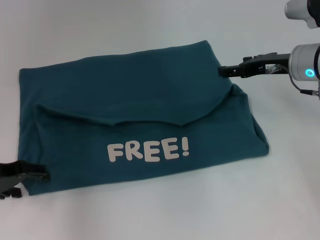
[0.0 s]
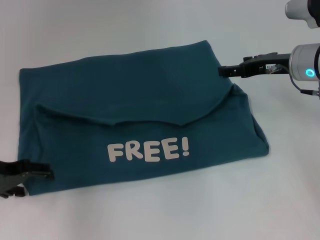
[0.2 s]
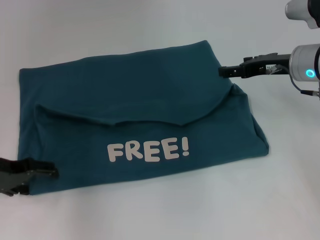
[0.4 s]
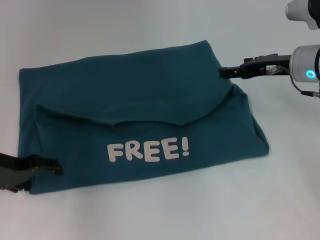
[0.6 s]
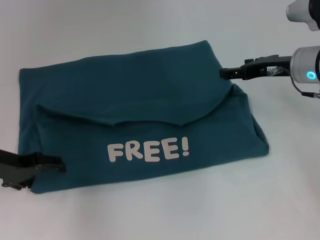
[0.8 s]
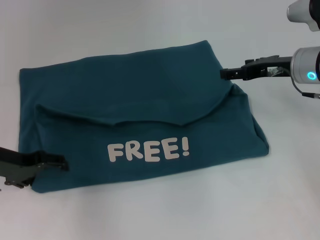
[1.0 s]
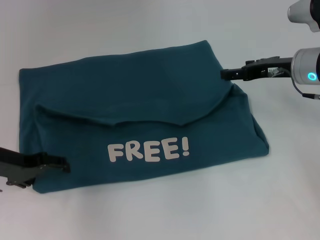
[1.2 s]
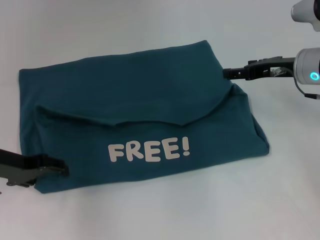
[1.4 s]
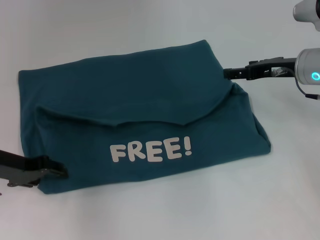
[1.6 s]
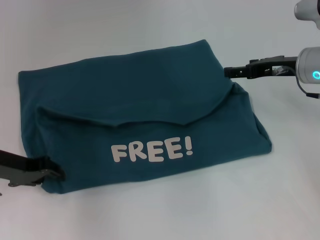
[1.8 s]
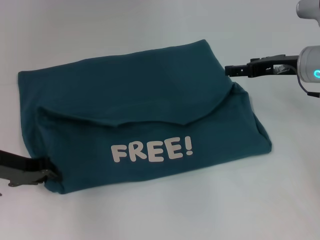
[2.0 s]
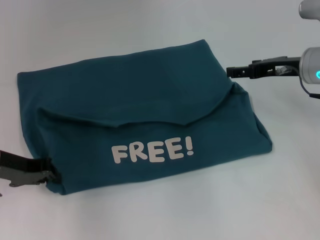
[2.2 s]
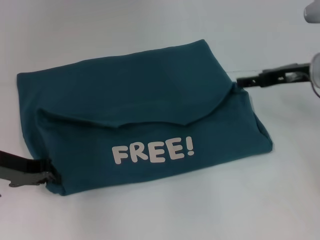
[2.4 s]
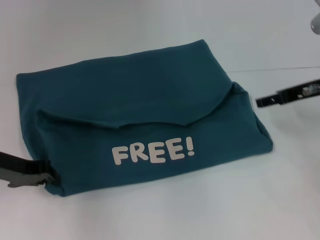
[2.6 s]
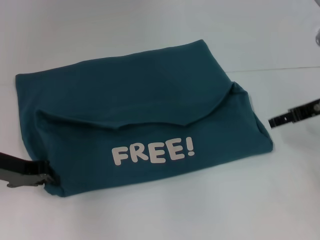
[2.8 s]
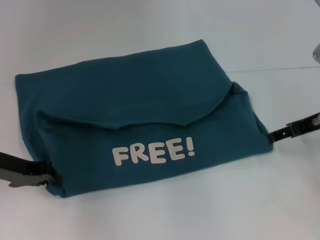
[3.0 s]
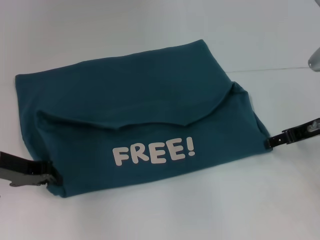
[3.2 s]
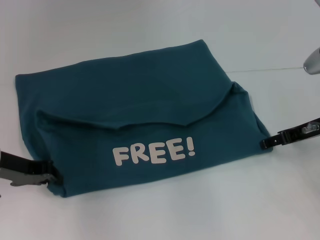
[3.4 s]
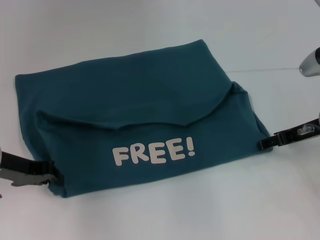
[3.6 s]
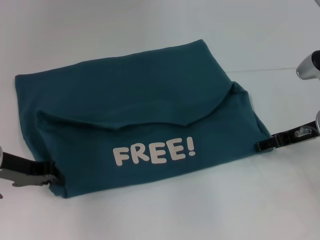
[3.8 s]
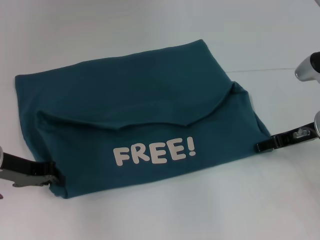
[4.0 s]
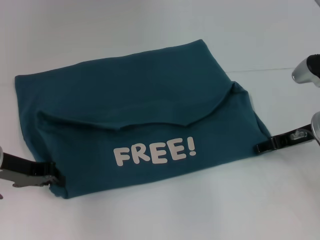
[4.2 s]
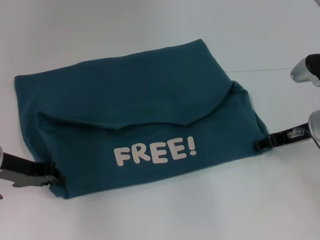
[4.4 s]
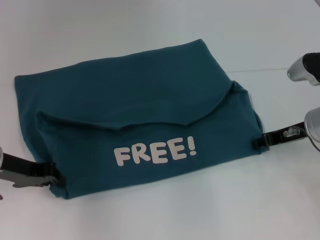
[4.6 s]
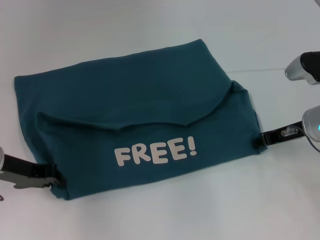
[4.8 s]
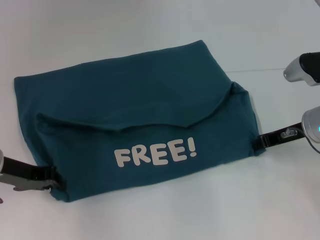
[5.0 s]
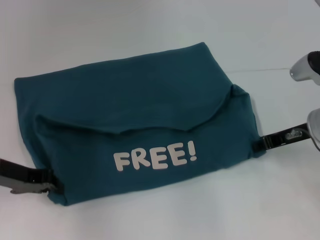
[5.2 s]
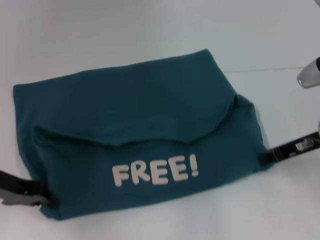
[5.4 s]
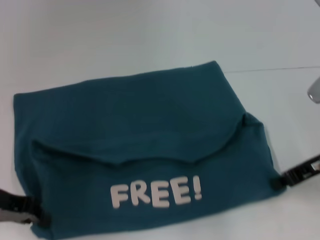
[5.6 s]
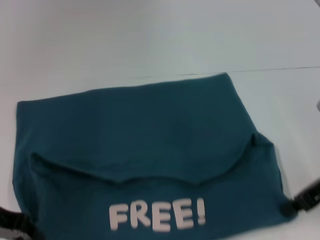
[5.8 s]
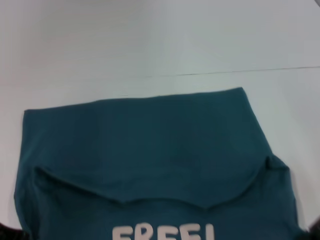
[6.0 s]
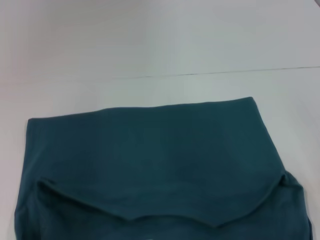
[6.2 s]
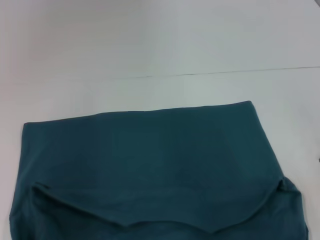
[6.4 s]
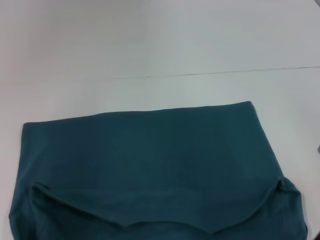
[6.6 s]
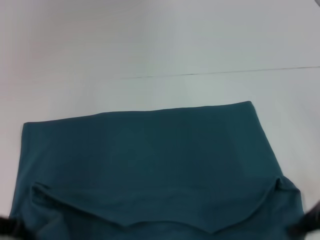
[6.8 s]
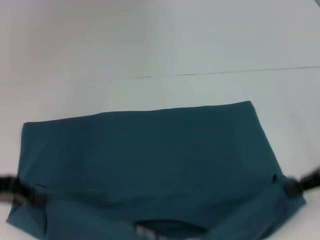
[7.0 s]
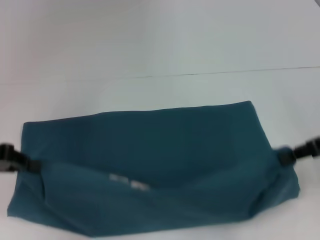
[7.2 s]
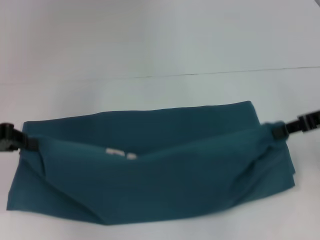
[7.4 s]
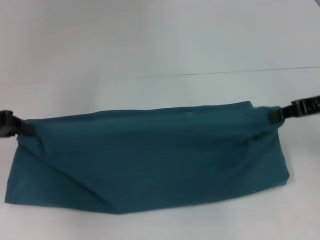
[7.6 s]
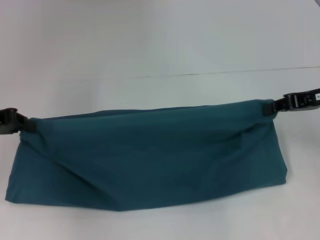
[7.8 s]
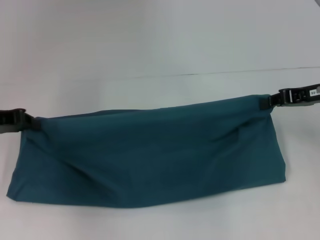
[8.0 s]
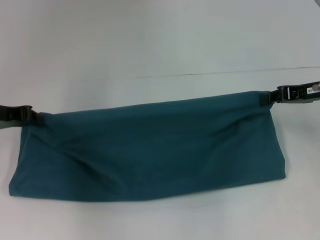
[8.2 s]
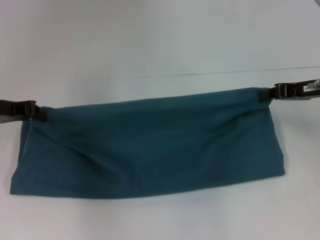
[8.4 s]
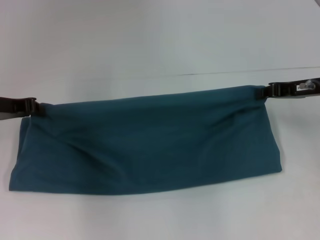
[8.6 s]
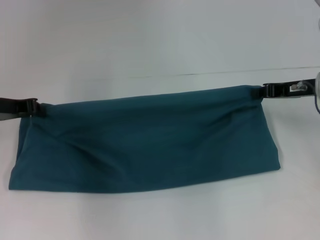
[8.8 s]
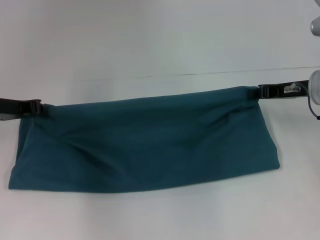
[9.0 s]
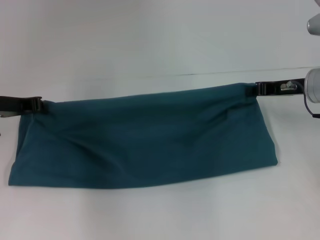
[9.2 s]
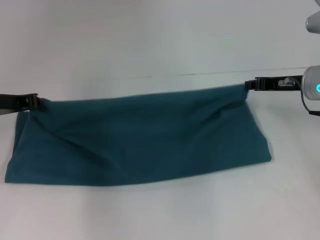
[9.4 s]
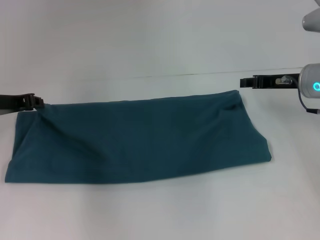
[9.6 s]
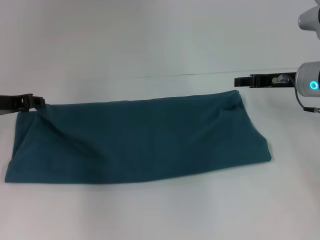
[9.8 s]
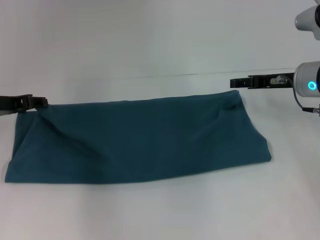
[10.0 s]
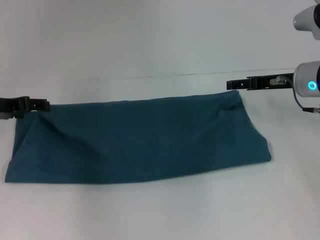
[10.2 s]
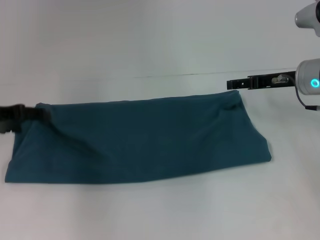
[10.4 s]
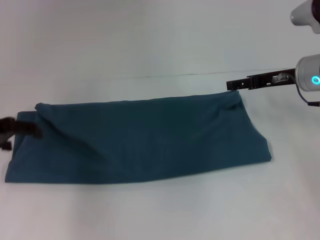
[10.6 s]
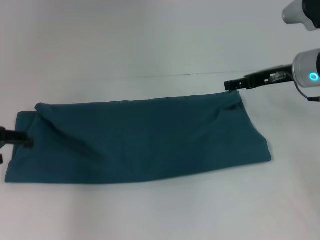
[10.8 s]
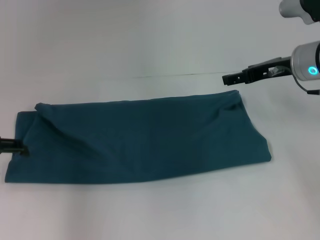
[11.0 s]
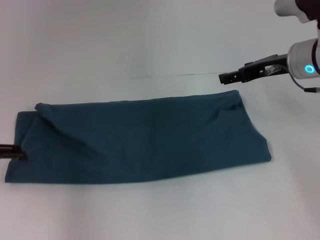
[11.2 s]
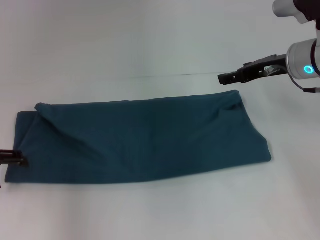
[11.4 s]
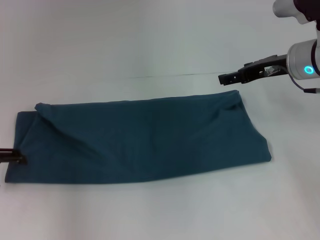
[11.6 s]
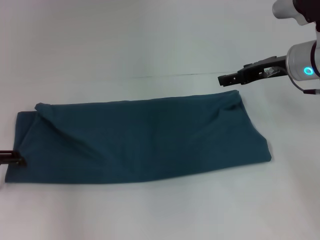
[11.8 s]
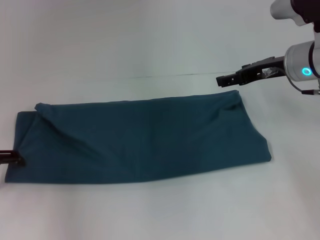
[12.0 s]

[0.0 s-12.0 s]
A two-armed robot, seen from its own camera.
Step, 0.0 to 6.4 s: Pull the clothes with your left hand.
Step, 0.0 to 6.4 s: Pull the clothes with your right hand.
Step, 6.6 to 10.4 s: Fold the clothes to the left.
Step, 6.6 to 10.4 s: Fold the clothes to the right.
0.0 to 1.6 s: The grippers stay close to where they were, moving slightly.
1.6 to 3.0 s: The left gripper closes its fingers. Meanwhile the right gripper shifts approximately 5 cm backward.
3.0 to 4.4 s: The right gripper ends up about 5 cm from where it was.
4.4 to 6.0 s: The right gripper goes roughly 10 cm backward, and closes up; the left gripper is displaced backward by some 5 cm.
6.0 to 7.6 s: The left gripper heads forward and upward, covering approximately 10 cm; the right gripper shifts some 10 cm forward.
7.6 to 9.0 s: The left gripper shifts by some 10 cm; the right gripper heads downward, covering roughly 5 cm.
9.0 to 10.4 s: The right gripper opens its fingers; the left gripper opens.
10.4 to 12.0 s: The left gripper moves approximately 5 cm.

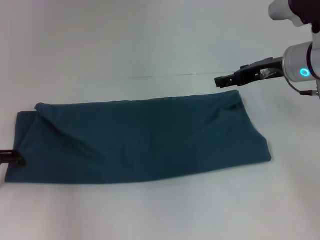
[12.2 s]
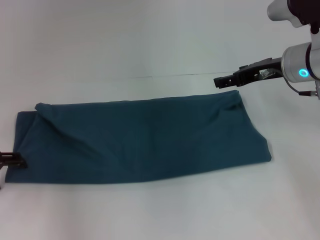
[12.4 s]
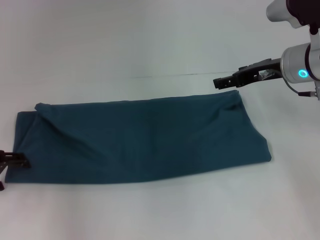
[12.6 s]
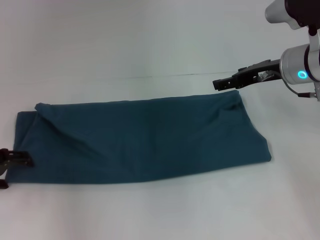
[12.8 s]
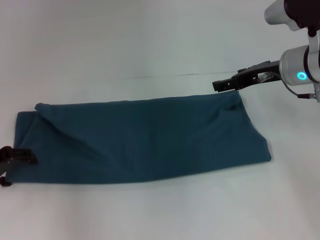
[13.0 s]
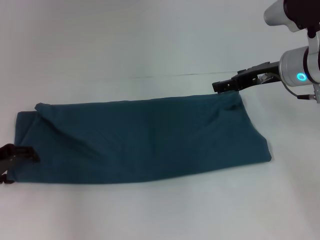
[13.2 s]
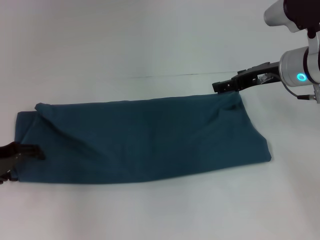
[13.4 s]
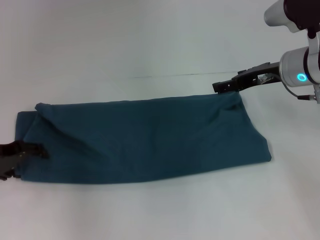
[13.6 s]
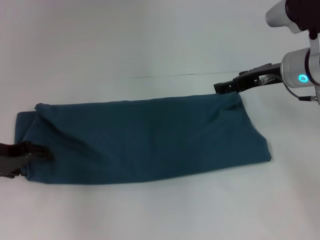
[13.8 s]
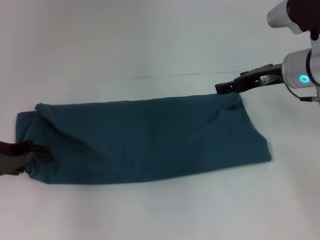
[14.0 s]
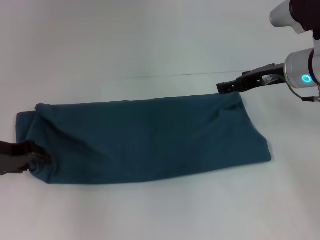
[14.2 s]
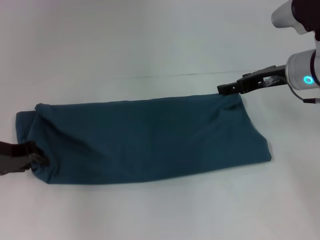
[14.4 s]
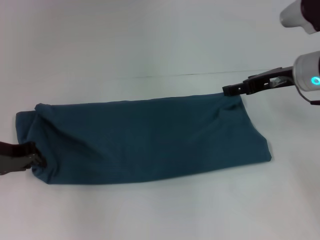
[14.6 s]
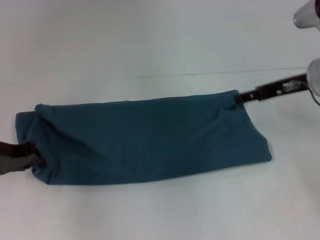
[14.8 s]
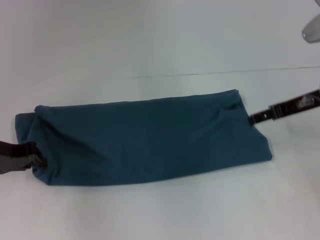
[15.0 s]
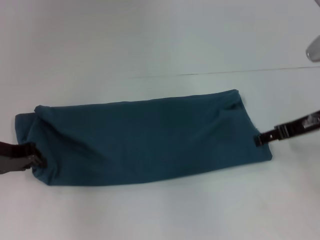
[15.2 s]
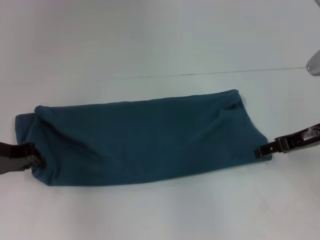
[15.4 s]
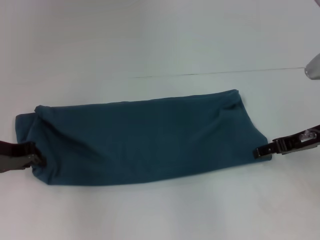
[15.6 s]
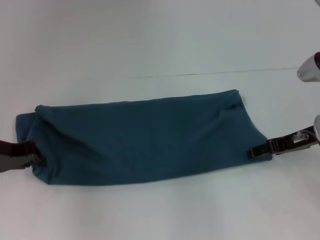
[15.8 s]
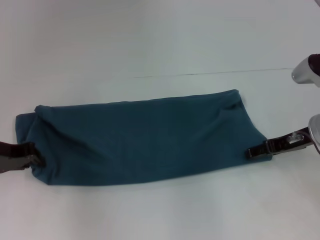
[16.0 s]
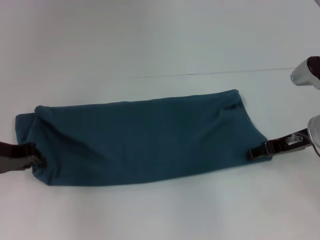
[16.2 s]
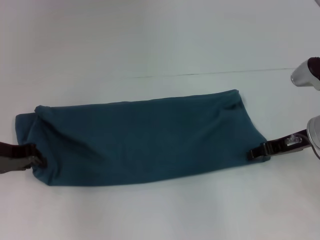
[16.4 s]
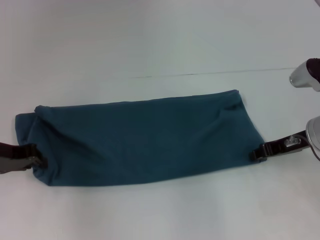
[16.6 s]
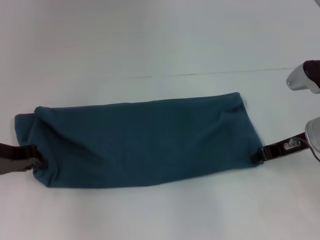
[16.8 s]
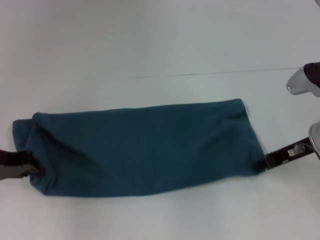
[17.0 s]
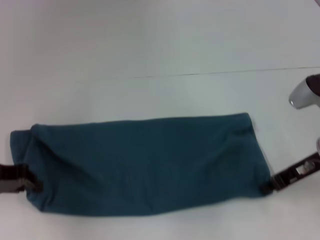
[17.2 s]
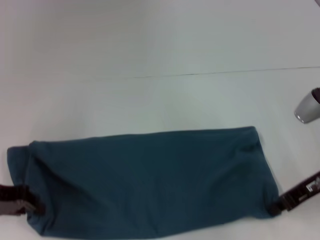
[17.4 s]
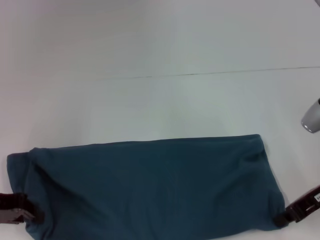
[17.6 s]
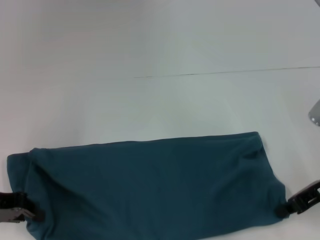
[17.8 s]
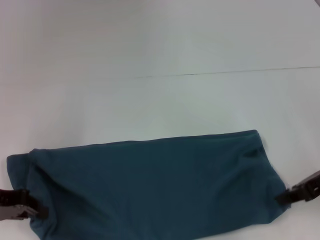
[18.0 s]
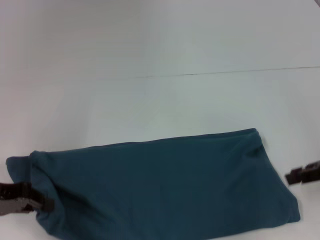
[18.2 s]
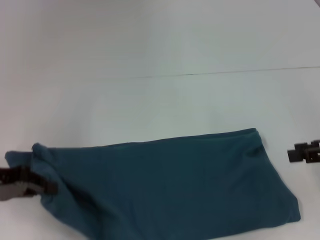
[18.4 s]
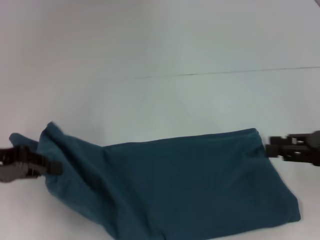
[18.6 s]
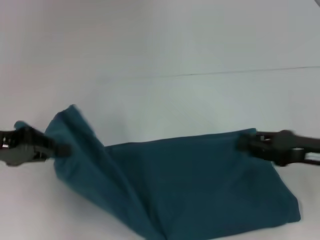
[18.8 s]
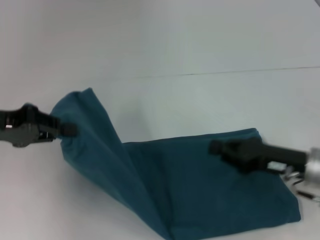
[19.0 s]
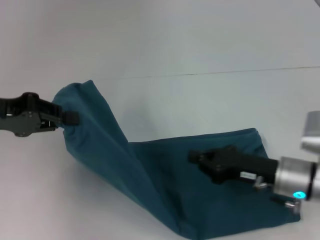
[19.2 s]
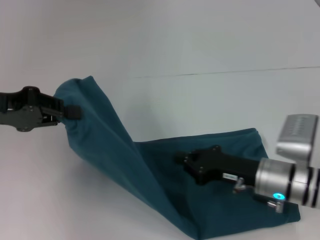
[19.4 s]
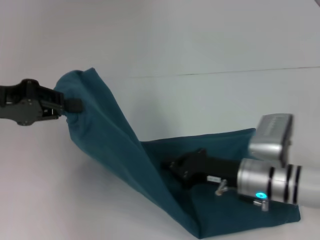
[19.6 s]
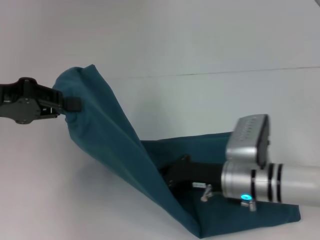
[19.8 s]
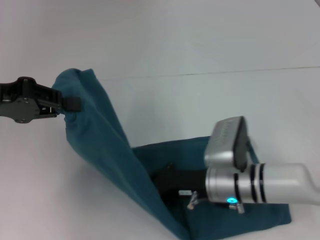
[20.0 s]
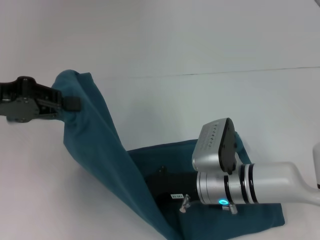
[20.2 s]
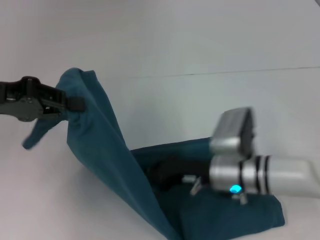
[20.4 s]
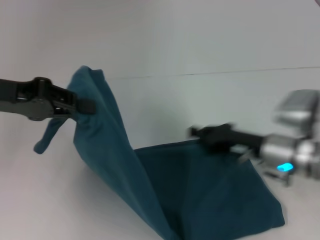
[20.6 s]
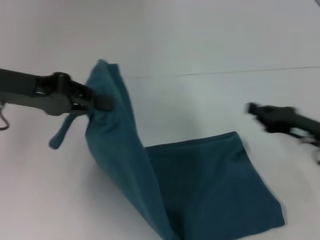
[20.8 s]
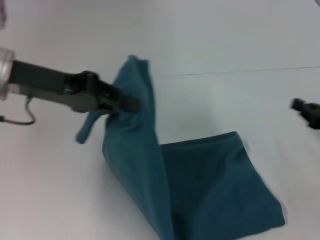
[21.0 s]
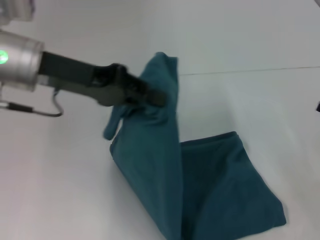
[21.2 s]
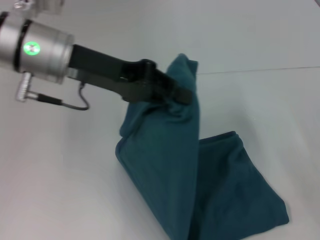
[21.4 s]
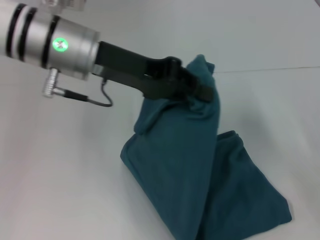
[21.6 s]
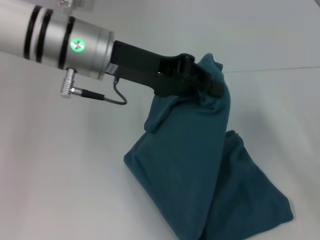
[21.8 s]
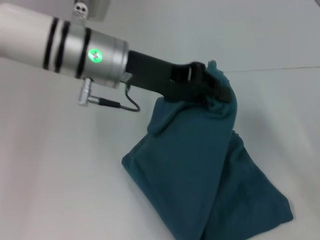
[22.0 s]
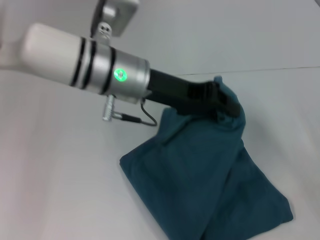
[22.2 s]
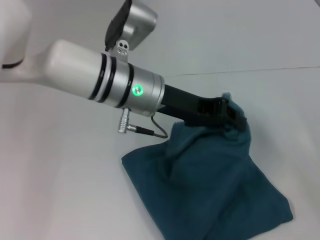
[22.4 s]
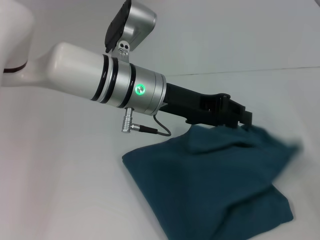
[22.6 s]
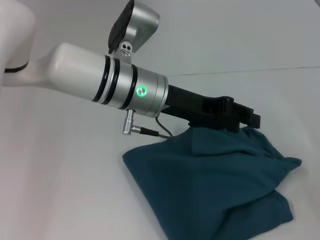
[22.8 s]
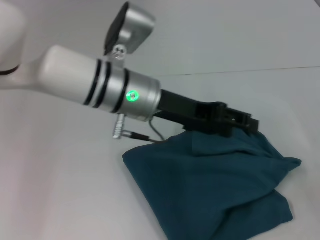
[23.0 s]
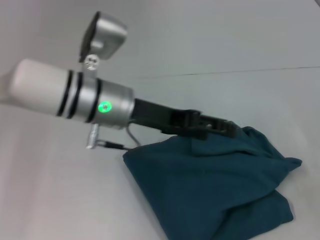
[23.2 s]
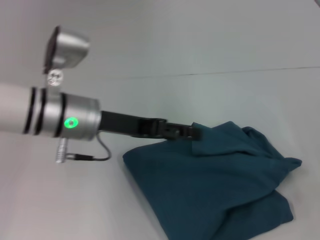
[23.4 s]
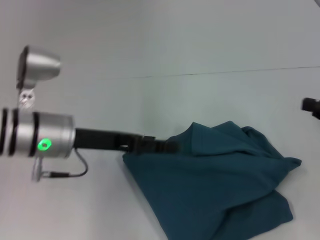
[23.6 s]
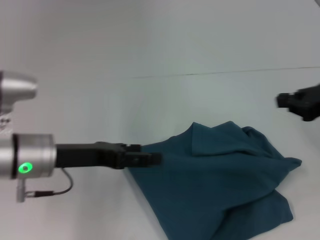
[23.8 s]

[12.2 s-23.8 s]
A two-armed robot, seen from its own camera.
Step, 12.2 to 20.4 s: Press the middle of the clothes with your right hand.
Step, 20.6 to 23.4 s: Fold the clothes to the left.
12.2 to 13.6 s: The grippers make only small movements.
13.6 to 15.0 s: The right gripper shifts by some 5 cm, while the left gripper closes up.
15.0 to 16.6 s: The right gripper travels downward by approximately 5 cm.
16.6 to 18.0 s: Both grippers move backward, approximately 5 cm. The right gripper closes.
18.0 to 19.4 s: The right gripper moves to the left and downward, some 15 cm, and opens and closes again, while the left gripper moves upward, some 10 cm.
19.4 to 21.0 s: The right gripper travels to the right by approximately 15 cm. The left gripper is displaced to the right by some 5 cm.
21.0 to 22.4 s: The right gripper moves to the right, about 5 cm. Meanwhile the left gripper shifts approximately 15 cm to the right.
22.4 to 23.8 s: The left gripper goes some 15 cm to the left, downward and backward, and opens its fingers. The right gripper is displaced upward and to the left by roughly 15 cm.
